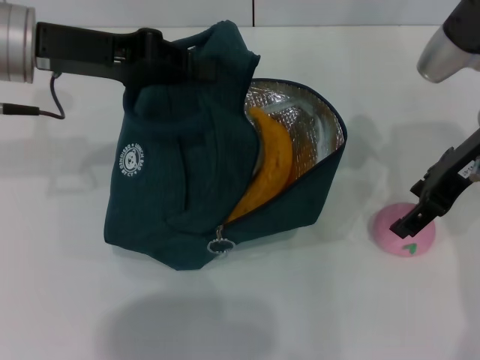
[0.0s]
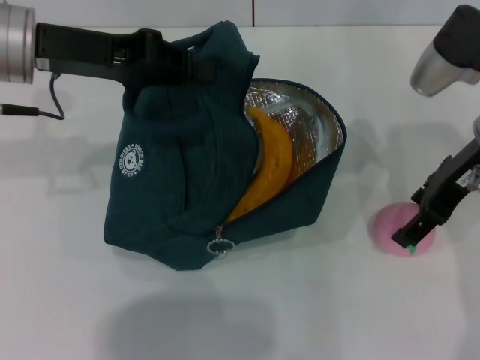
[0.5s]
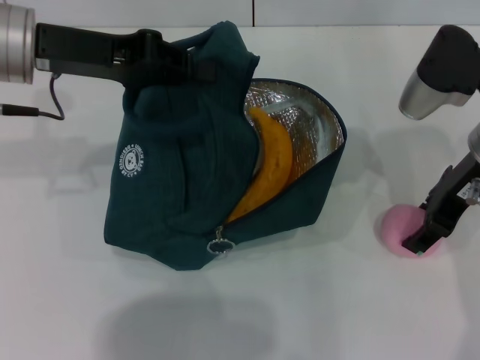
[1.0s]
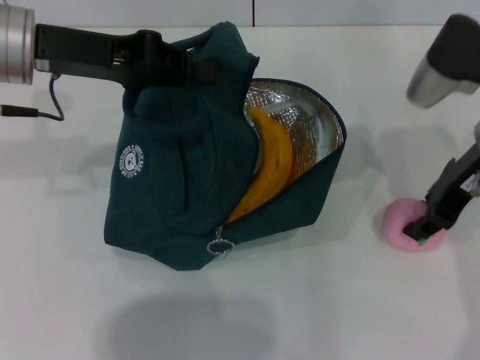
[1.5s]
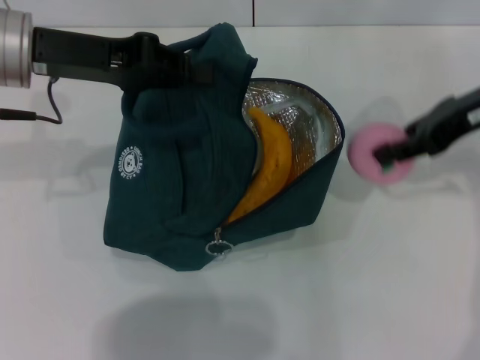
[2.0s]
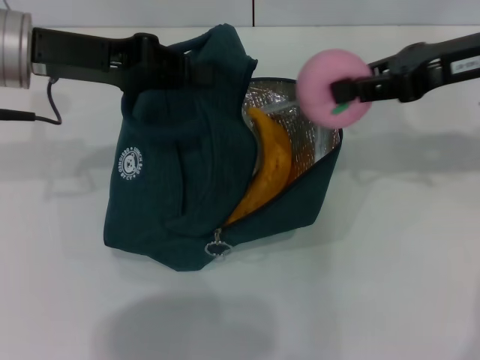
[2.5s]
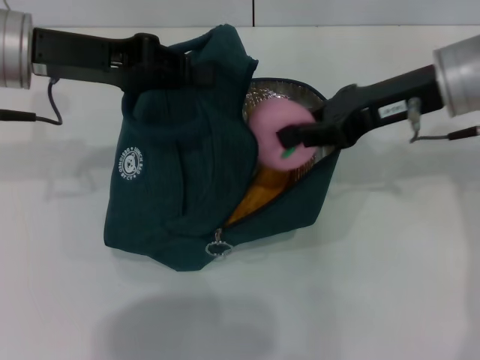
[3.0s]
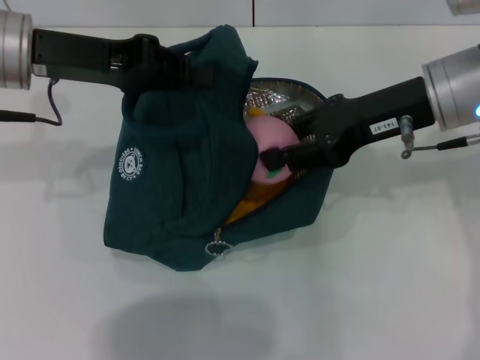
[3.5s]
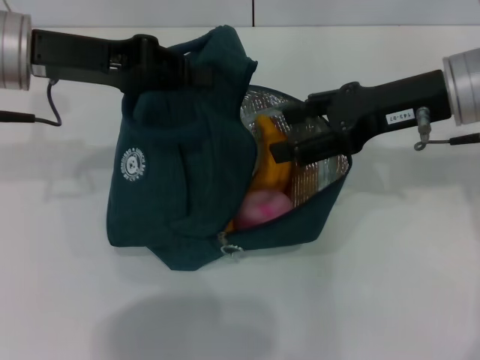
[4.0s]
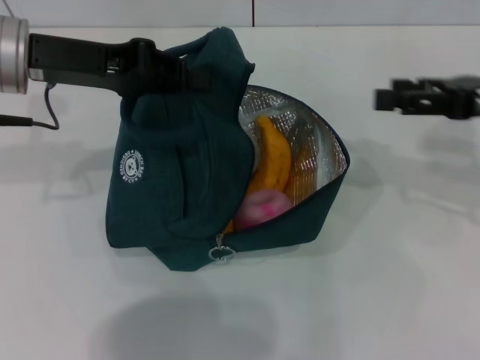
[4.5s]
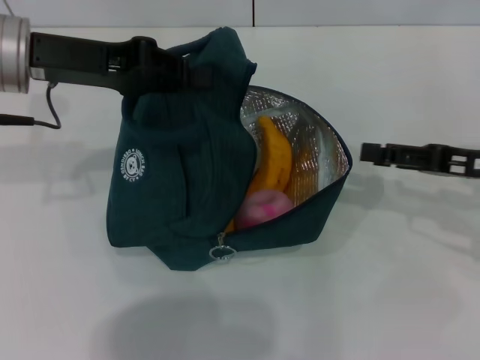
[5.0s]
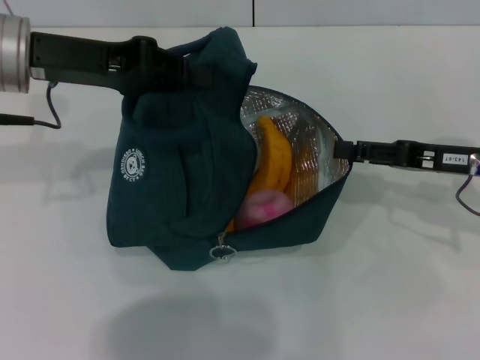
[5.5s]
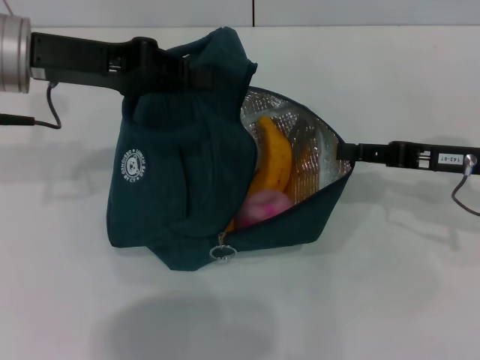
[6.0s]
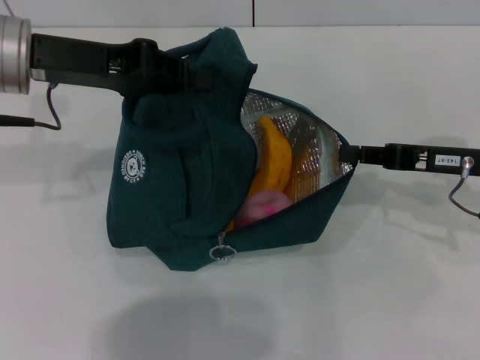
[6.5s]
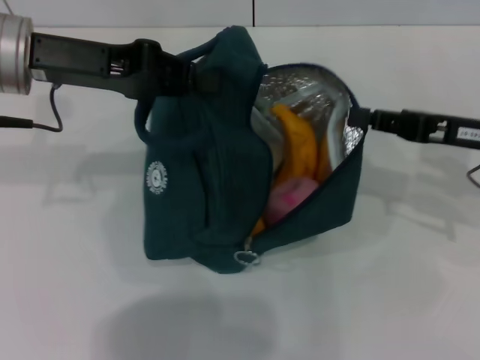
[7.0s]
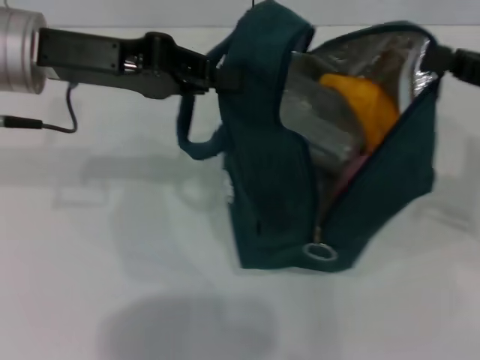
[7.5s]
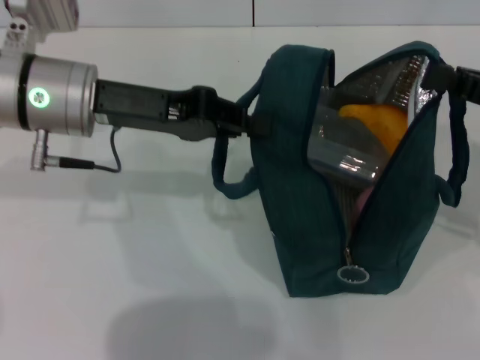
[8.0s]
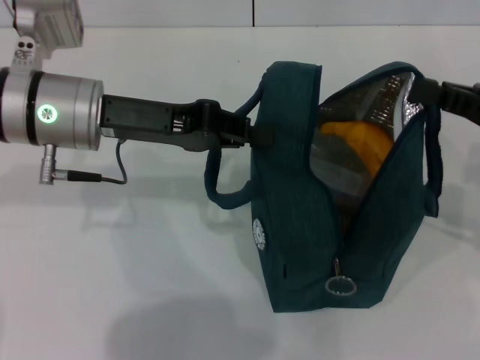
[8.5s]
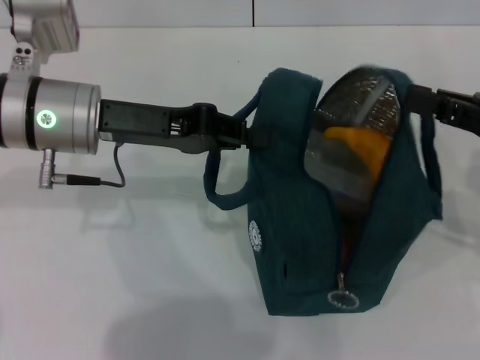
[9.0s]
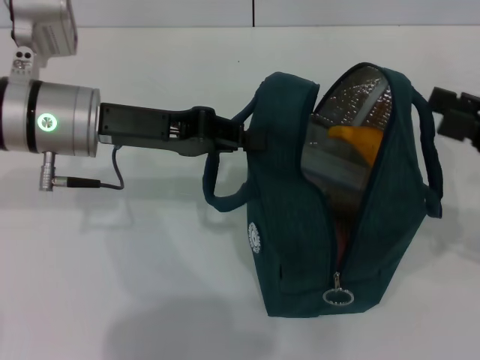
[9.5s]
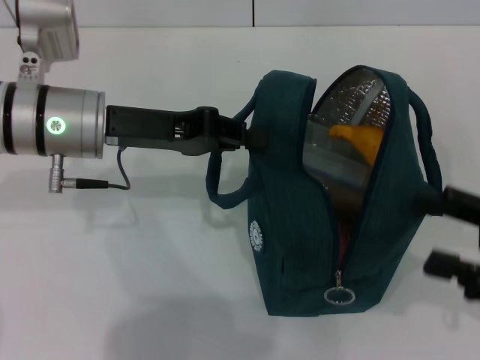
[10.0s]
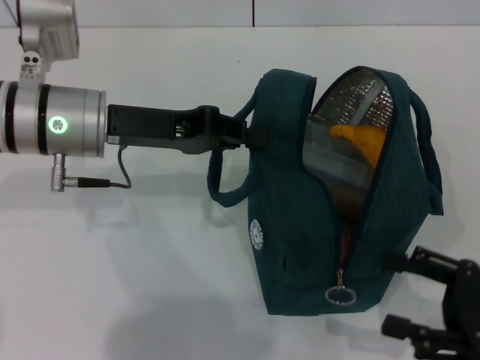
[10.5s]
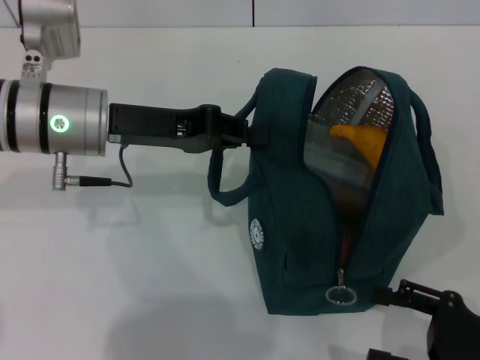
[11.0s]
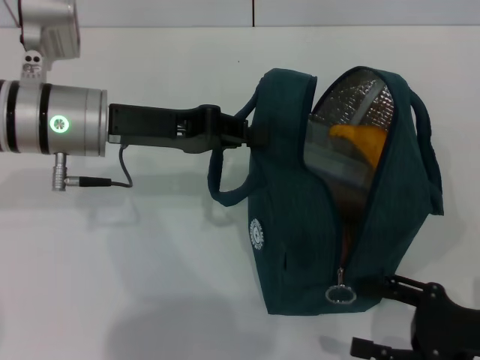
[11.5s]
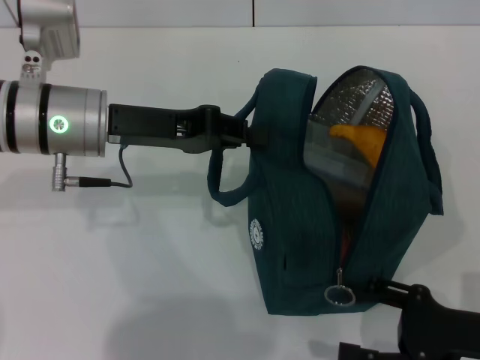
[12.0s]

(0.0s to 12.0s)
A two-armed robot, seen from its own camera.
Step, 4.5s - 9.0s: Hold the lunch bag with your right hand.
0.0s - 2.0s: The right gripper closes up.
2.0s - 4.0s: The right gripper travels to the left by approximately 5 cm, and opens up.
4.0s - 6.0s: The right gripper heads downward and to the right, covering some 10 cm, and closes.
6.0s - 8.0s: The right gripper goes roughly 5 cm upward, and closes up. The left gripper moves roughly 5 cm.
8.0s - 10.0s: The right gripper goes approximately 10 cm backward and downward, and opens.
10.0s - 12.0s: The right gripper travels downward by roughly 10 cm.

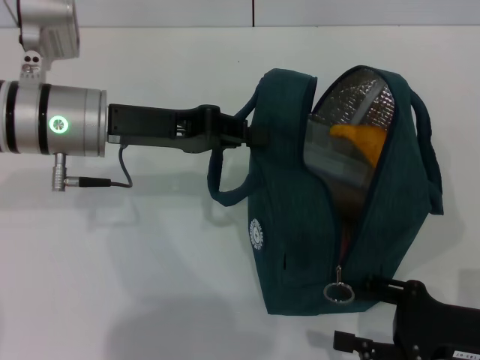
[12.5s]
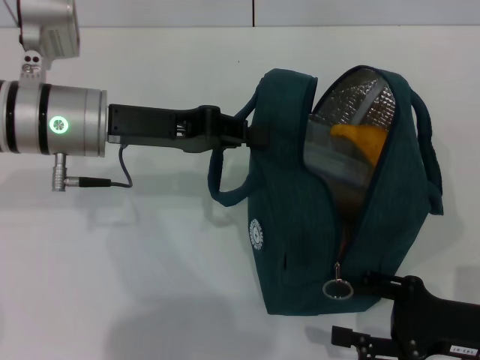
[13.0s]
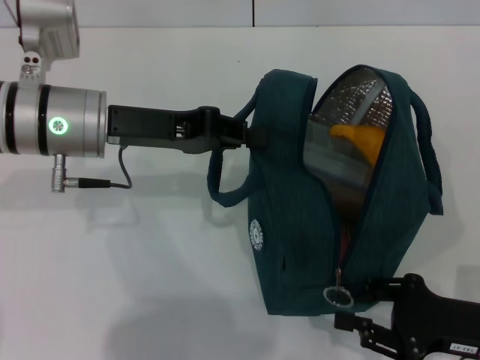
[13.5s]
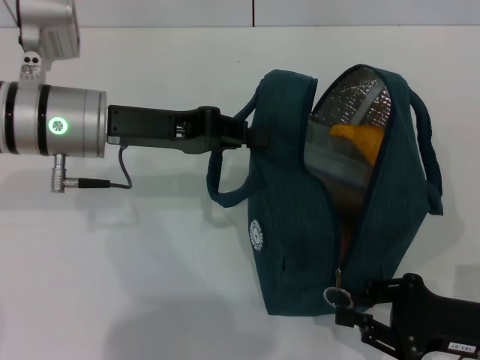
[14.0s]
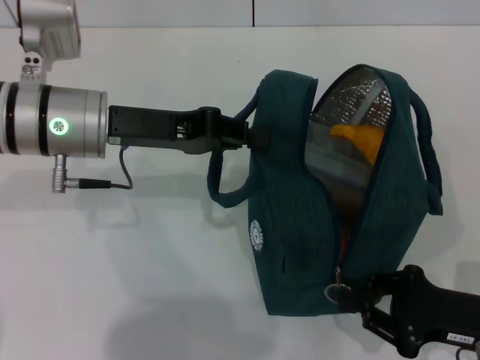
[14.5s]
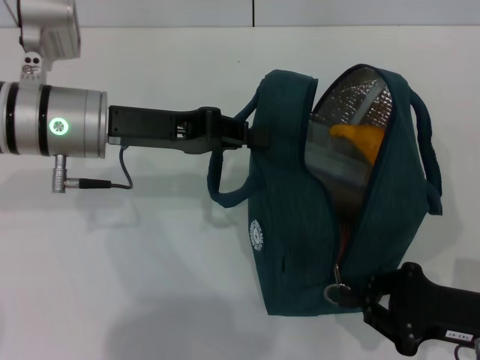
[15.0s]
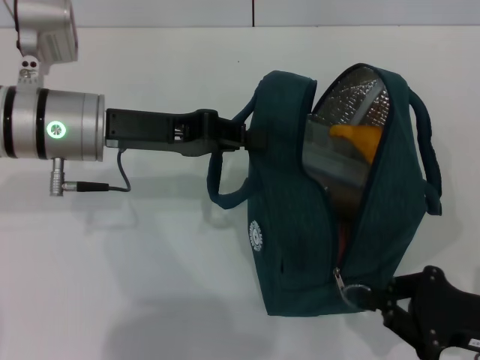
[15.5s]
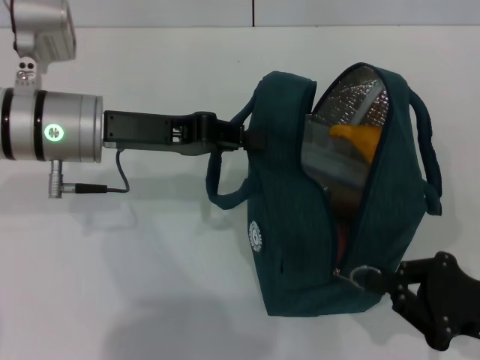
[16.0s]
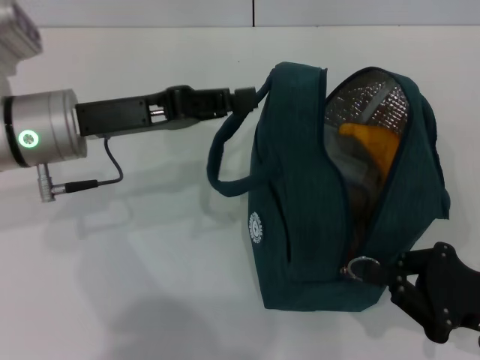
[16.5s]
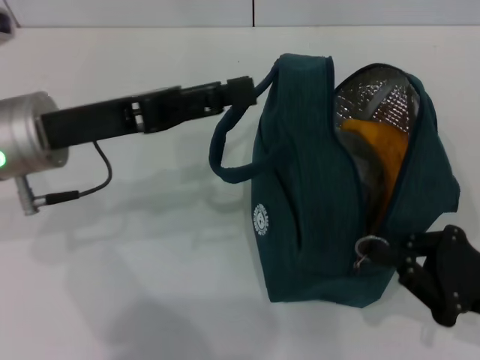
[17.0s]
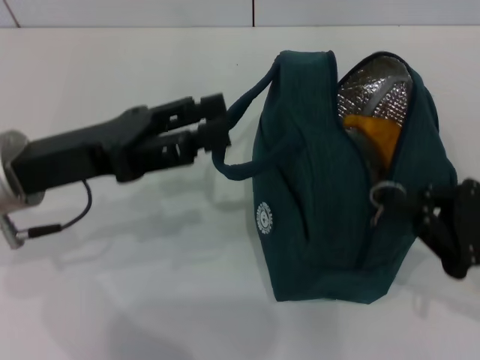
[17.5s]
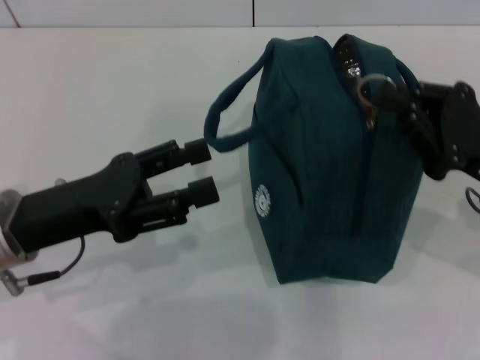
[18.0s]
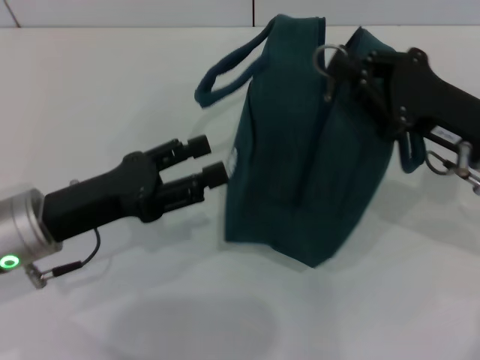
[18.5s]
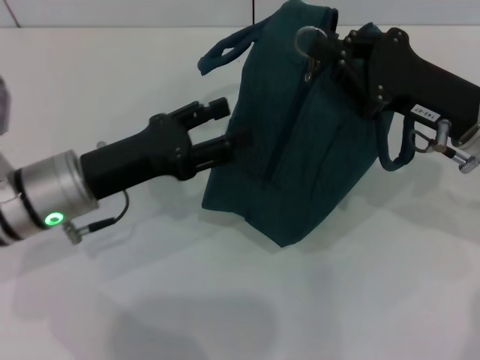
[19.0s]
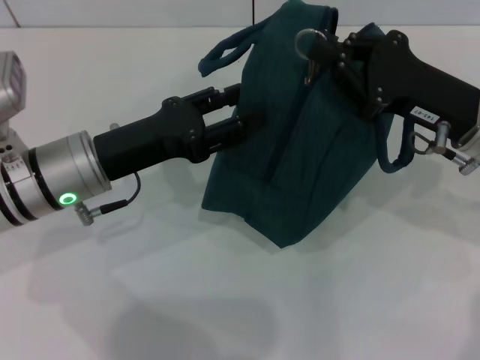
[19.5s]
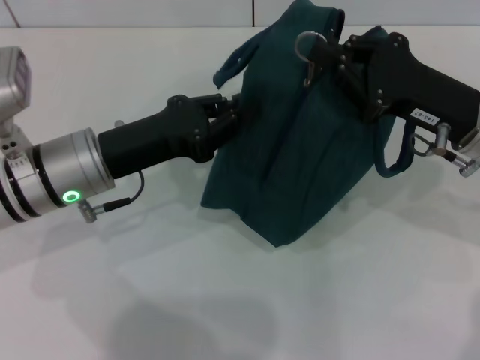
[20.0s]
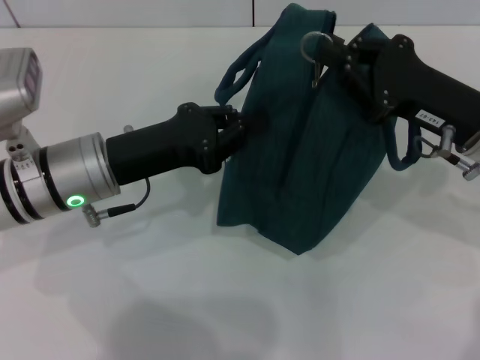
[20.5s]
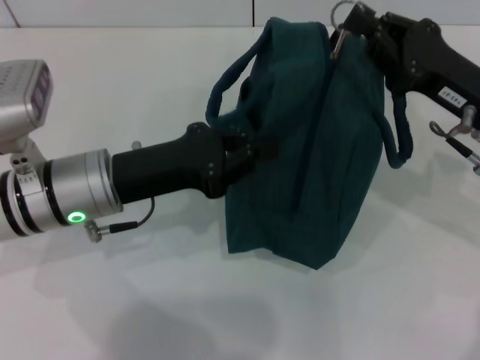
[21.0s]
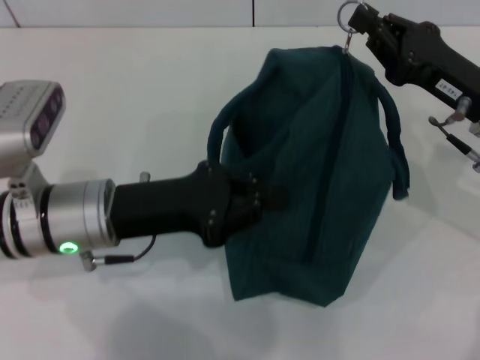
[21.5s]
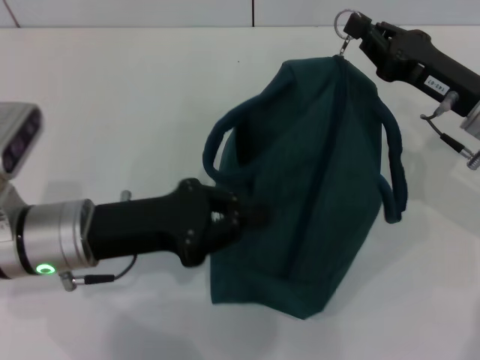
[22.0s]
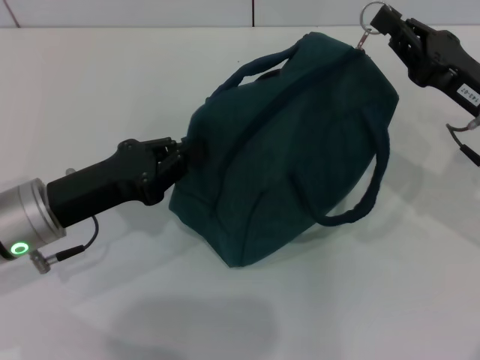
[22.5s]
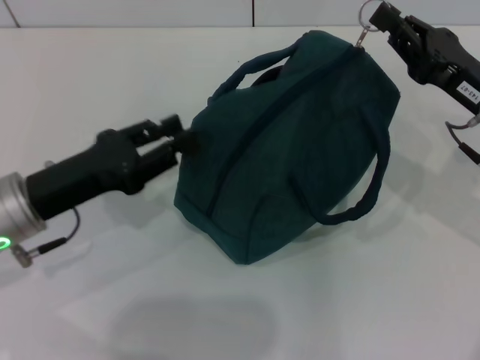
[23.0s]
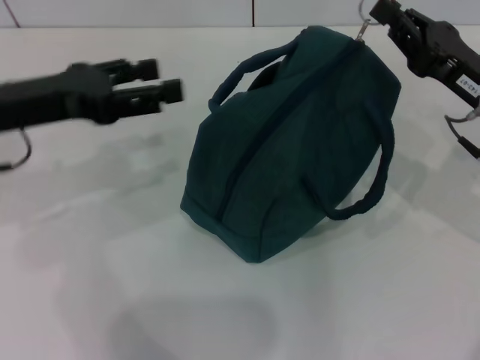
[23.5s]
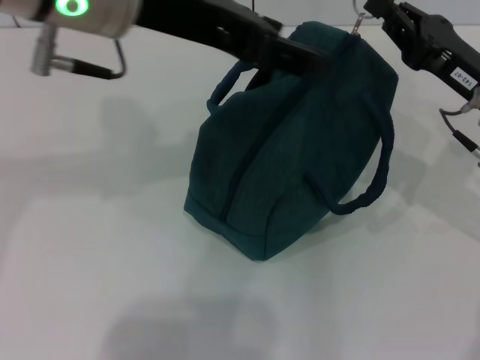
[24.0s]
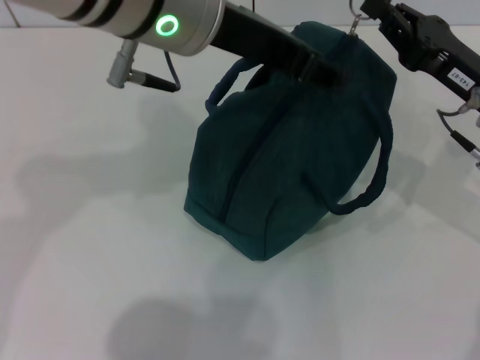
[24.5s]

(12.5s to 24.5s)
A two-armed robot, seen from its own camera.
Step, 12.5s - 16.5s: Hold the lunch bag with your left hand.
12.5s - 14.5s: The right gripper closes.
16.5s - 18.5s: The left gripper moves backward and downward, about 10 cm, and opens its fingers; the right gripper shifts some 15 cm forward, upward and to the left.
18.5s - 20.5s: The left gripper goes roughly 5 cm forward, and closes up.
20.5s - 22.5s: The left gripper ends up about 5 cm from where it was.
22.5s - 24.5s: The left gripper travels upward and to the right by some 25 cm, and opens up.

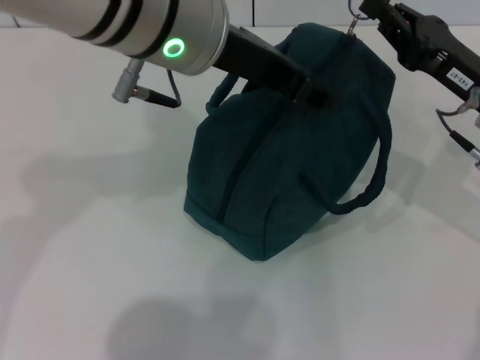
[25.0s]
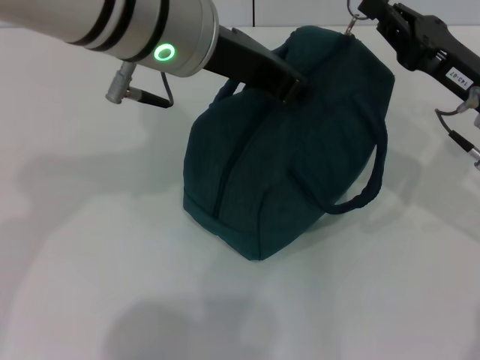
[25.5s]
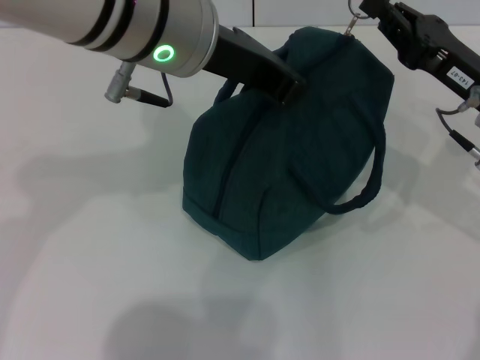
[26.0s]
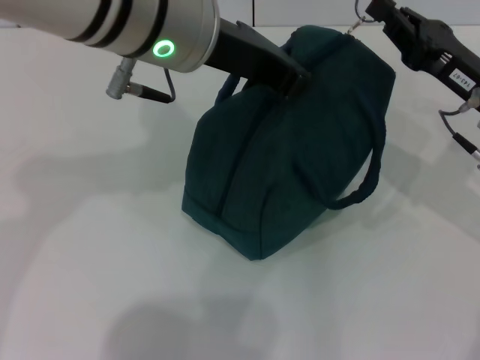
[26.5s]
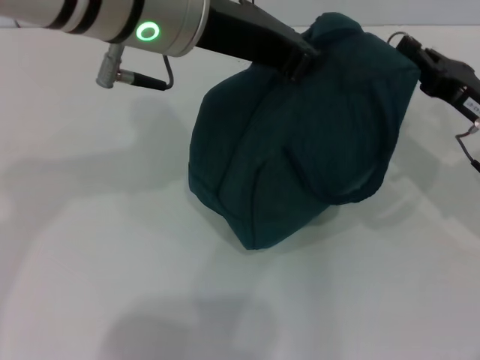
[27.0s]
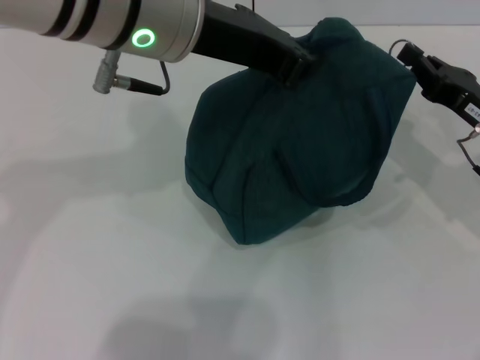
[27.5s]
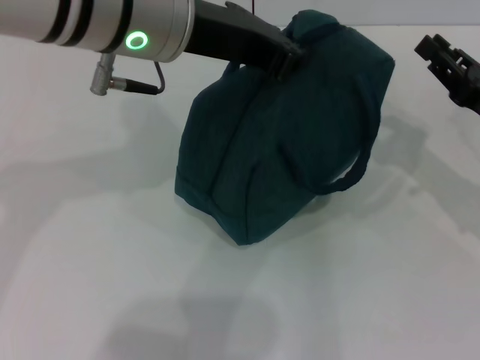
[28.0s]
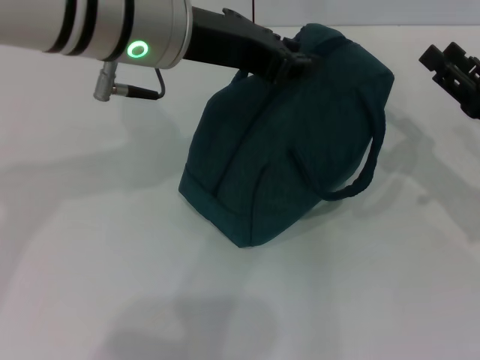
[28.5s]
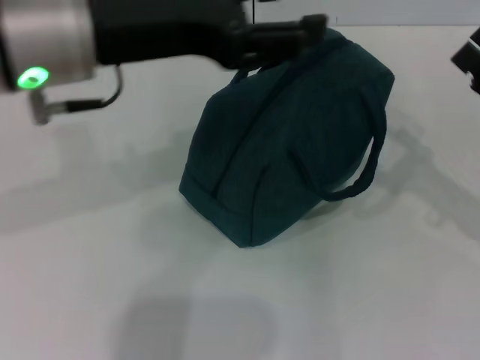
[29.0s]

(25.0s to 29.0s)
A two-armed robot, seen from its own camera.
Step, 25.0s - 27.5s: Zip up the lunch bag with your right hand.
Step, 28.0s - 28.5s: Hold the lunch bag with your left hand.
25.0s - 27.0s: The left gripper closes.
27.0s - 29.0s: The left gripper heads to the left, covering about 5 cm, and opens up, while the right gripper is displaced backward by roughly 5 cm, and opens its fingers.
